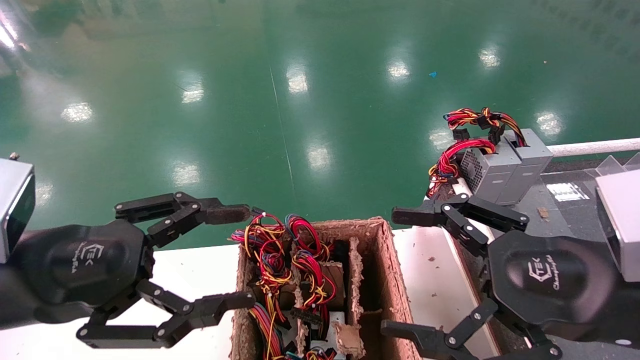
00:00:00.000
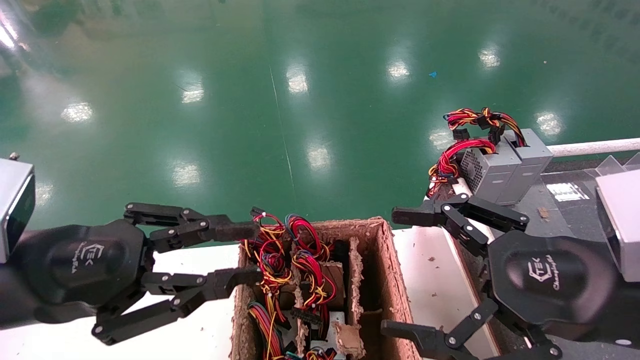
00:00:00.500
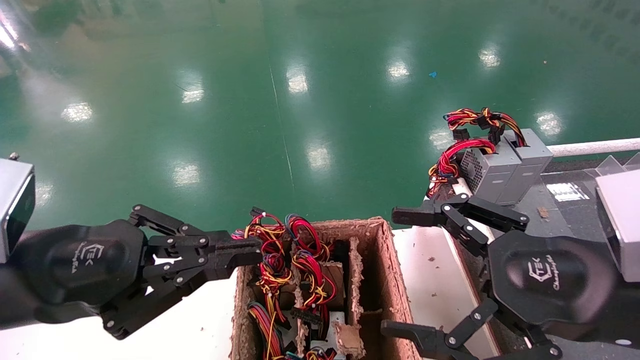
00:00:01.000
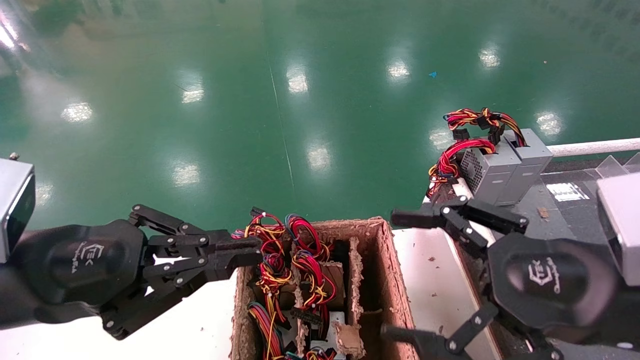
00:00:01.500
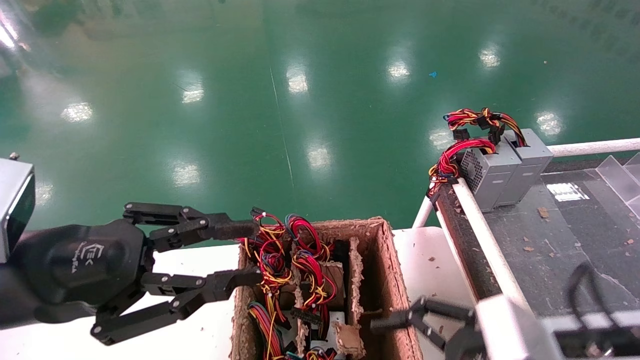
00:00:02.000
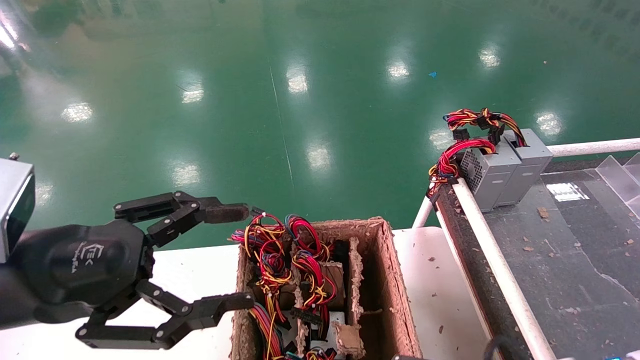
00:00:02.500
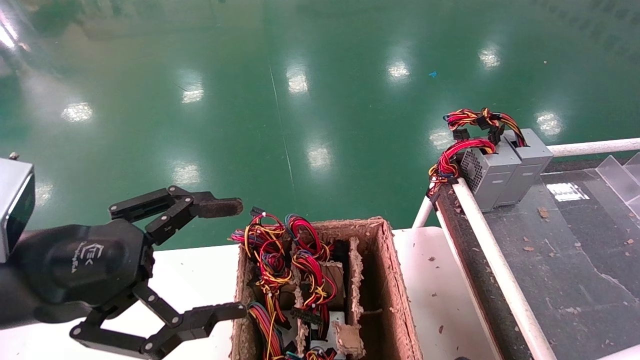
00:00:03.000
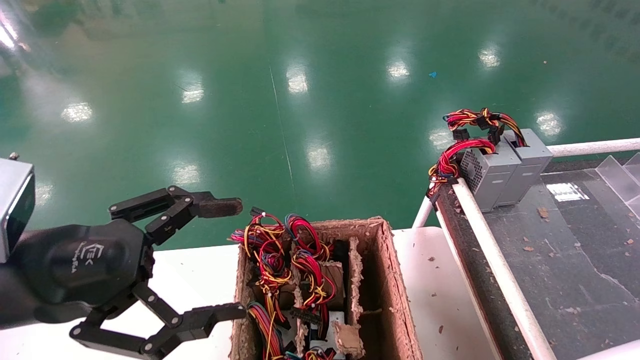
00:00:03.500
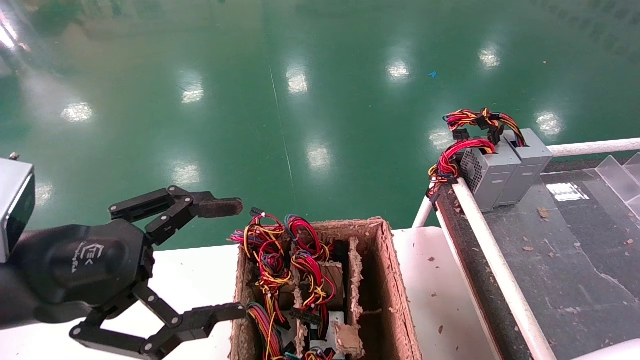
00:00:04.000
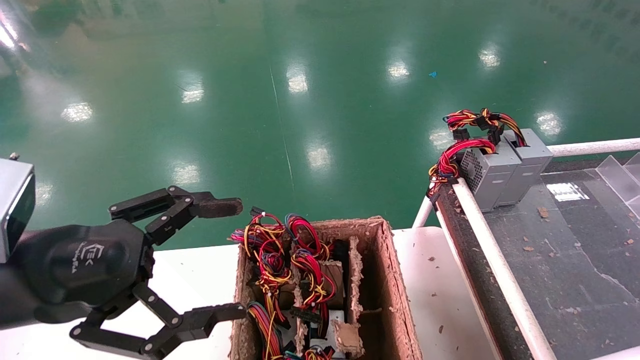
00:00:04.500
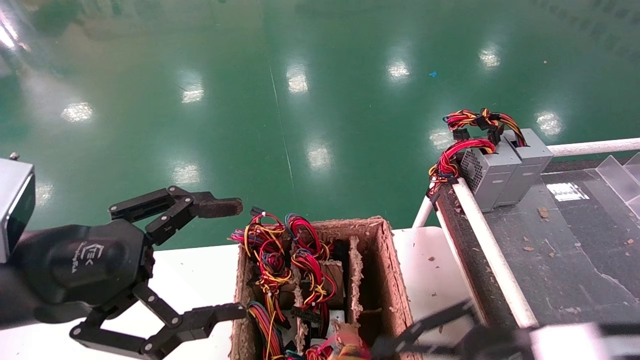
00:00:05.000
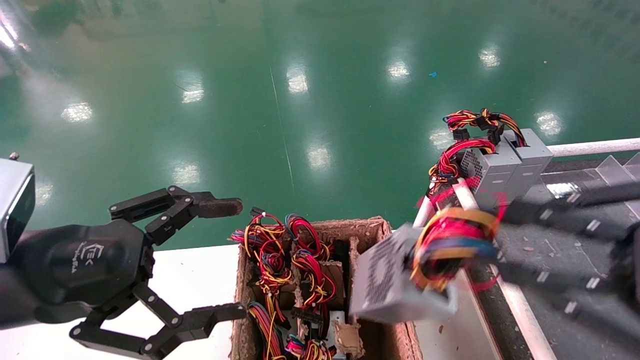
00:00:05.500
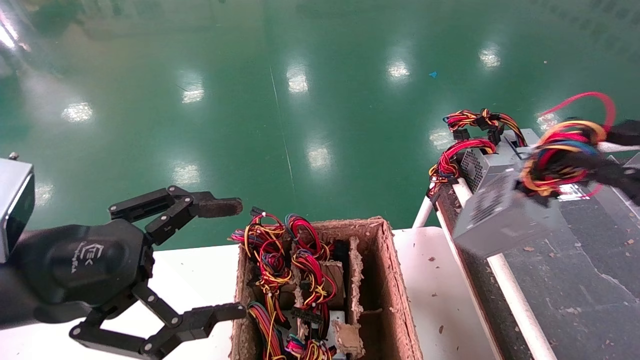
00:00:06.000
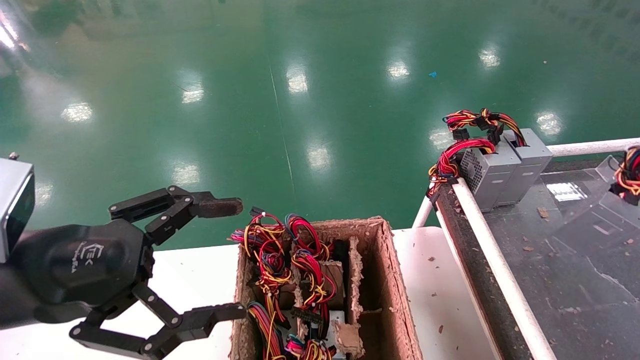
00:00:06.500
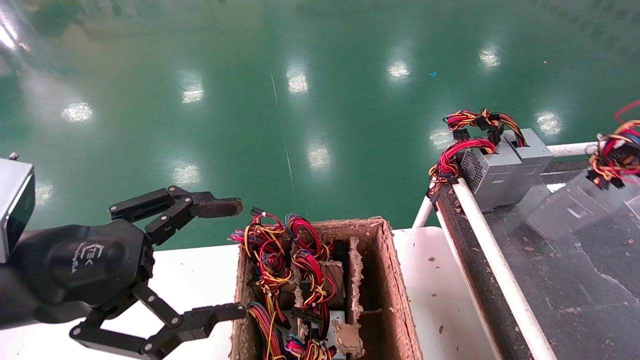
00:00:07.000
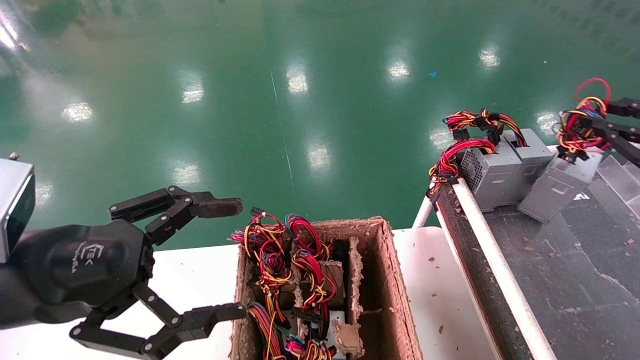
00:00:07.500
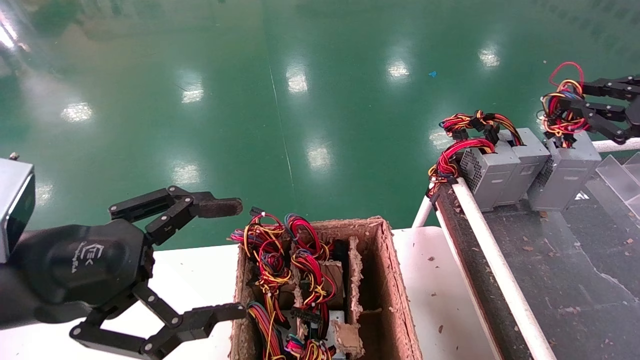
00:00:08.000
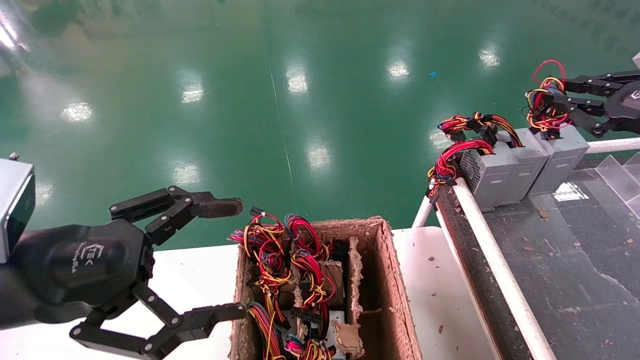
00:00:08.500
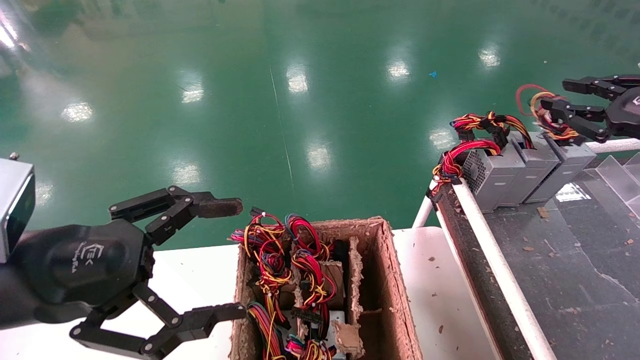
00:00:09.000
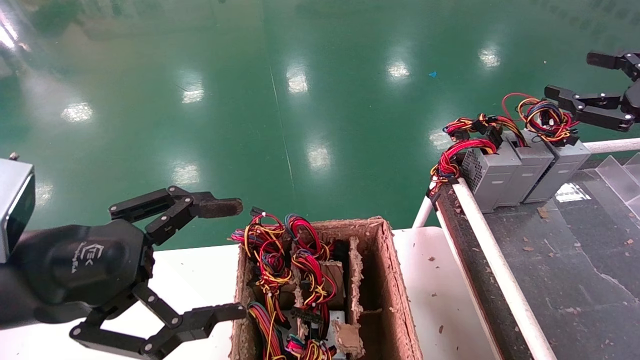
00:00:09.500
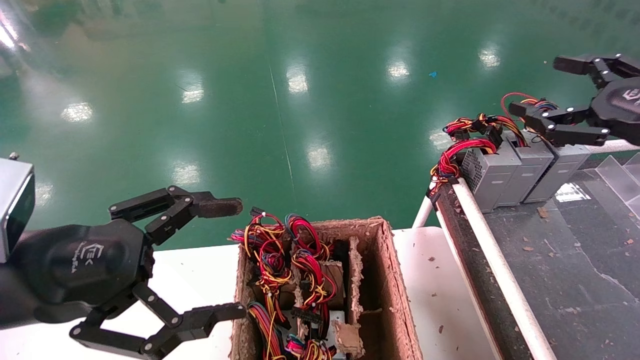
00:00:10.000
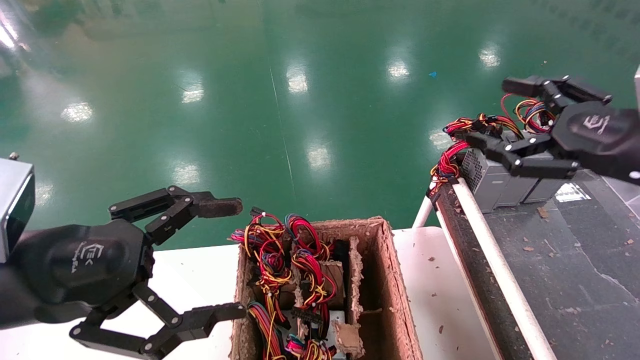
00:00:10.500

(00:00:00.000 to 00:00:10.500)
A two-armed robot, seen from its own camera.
Step, 00:00:02.000 - 00:00:04.000: Grab and lift the power supply from the large box.
Step, 00:00:04.500 - 00:00:09.000: Place the power supply on the operating table.
00:00:00.000 - 00:00:02.000: The left gripper closes, while the right gripper heads downward, covering roughly 10 cm.
00:00:02.000 - 00:00:04.000: The right gripper moves downward and to the left, about 10 cm, and closes, while the left gripper opens up.
00:00:04.000 - 00:00:06.500: The right gripper moves to the right and upward, some 35 cm.
00:00:06.500 - 00:00:08.500: The right gripper moves forward and upward, about 20 cm.
00:00:08.500 - 00:00:10.500: The right gripper is displaced to the left and backward by about 10 cm, and opens its fingers.

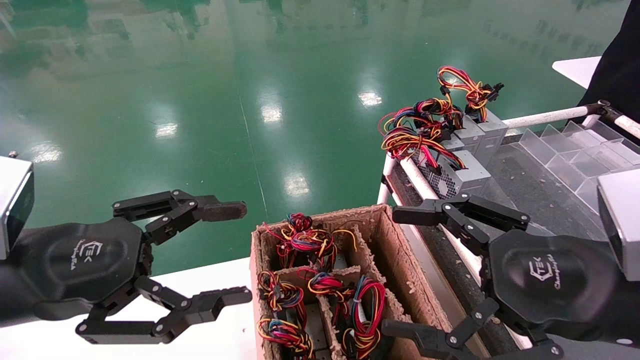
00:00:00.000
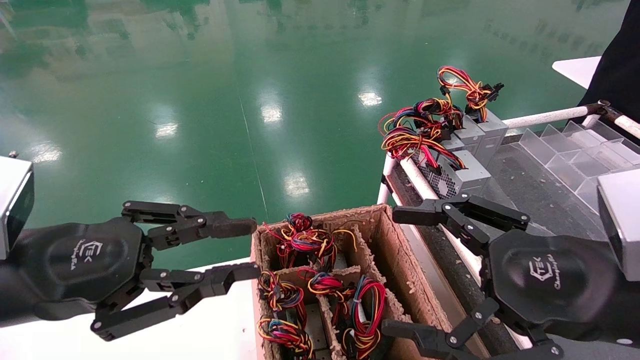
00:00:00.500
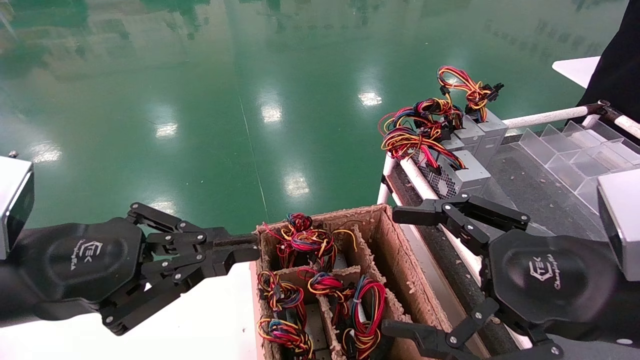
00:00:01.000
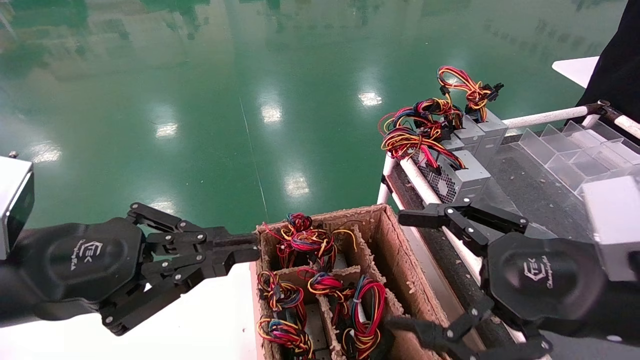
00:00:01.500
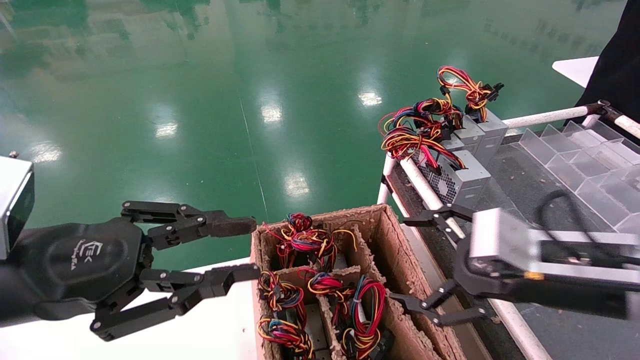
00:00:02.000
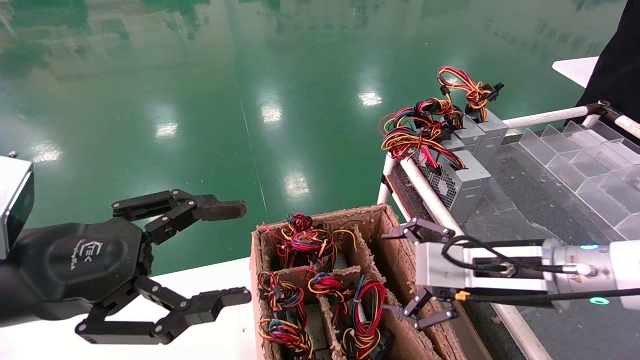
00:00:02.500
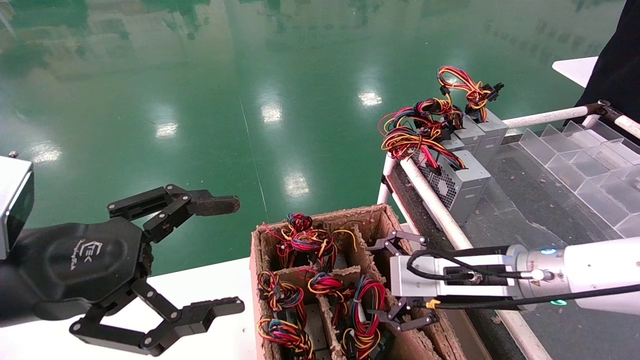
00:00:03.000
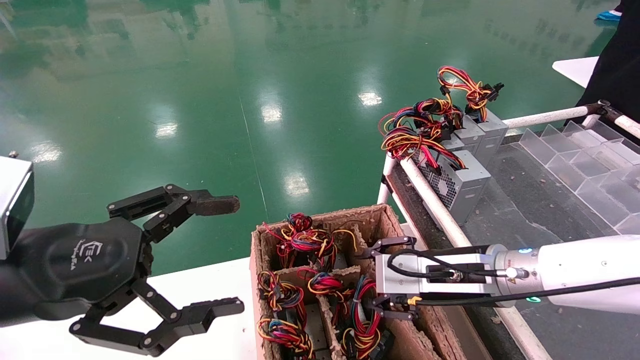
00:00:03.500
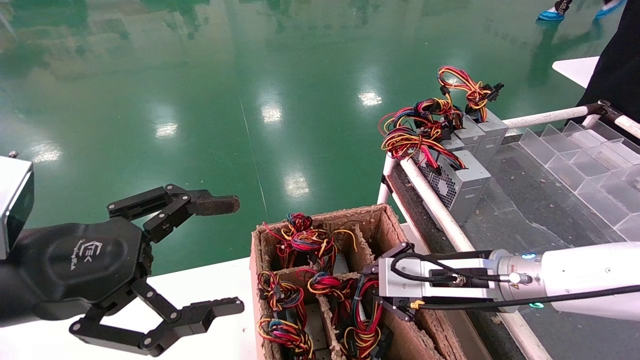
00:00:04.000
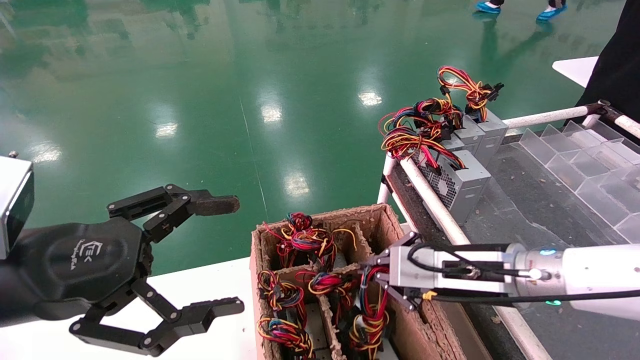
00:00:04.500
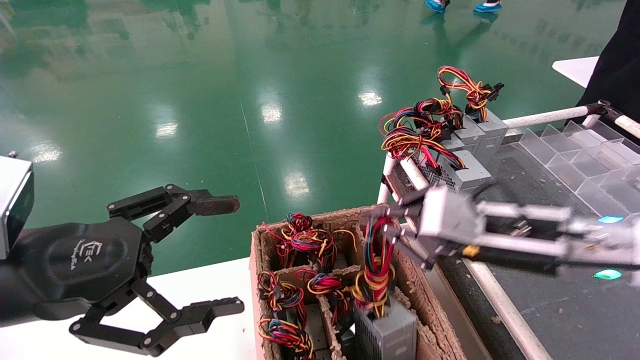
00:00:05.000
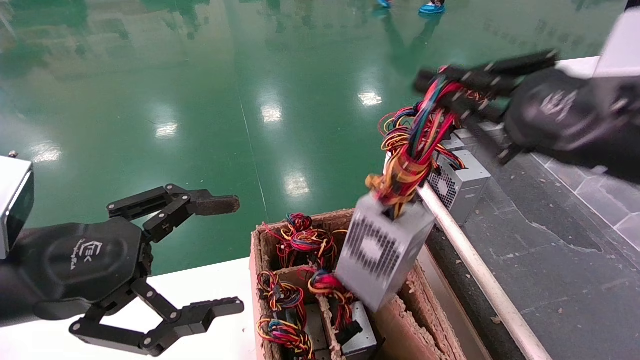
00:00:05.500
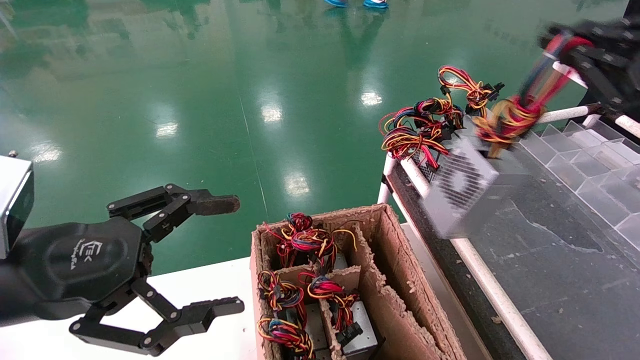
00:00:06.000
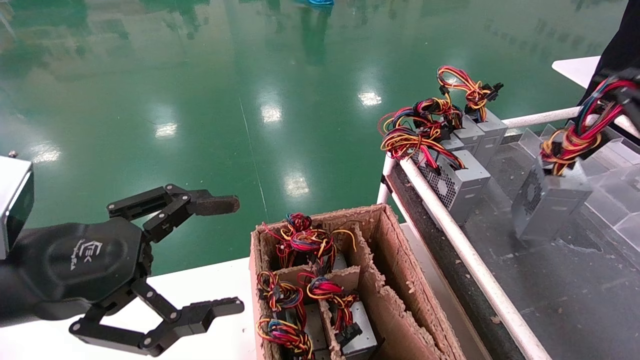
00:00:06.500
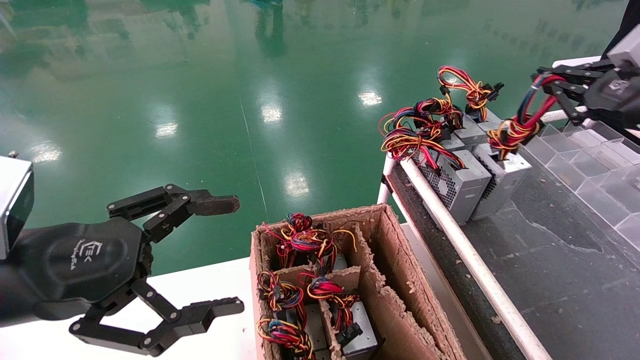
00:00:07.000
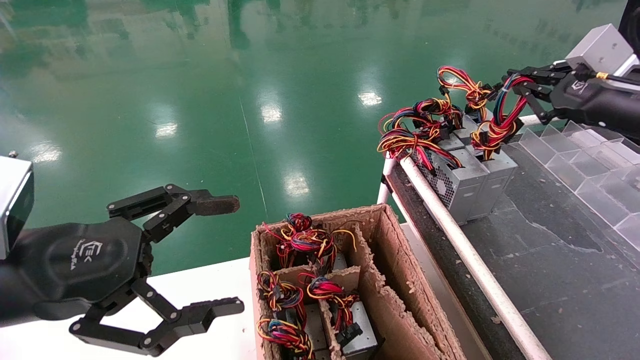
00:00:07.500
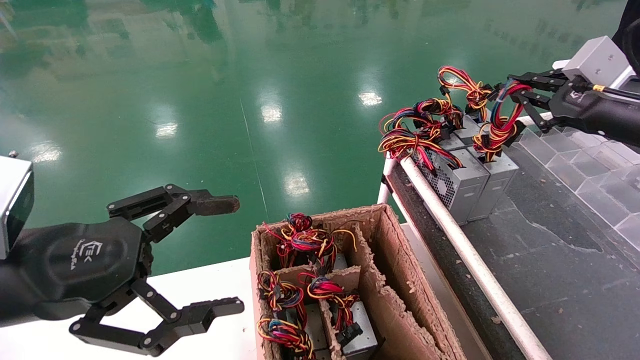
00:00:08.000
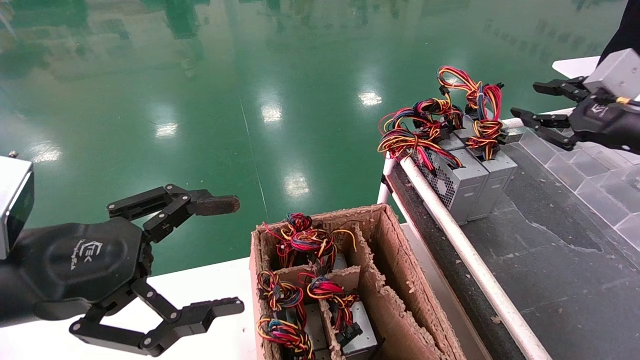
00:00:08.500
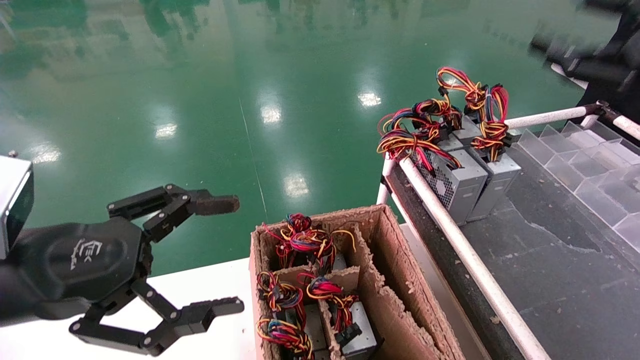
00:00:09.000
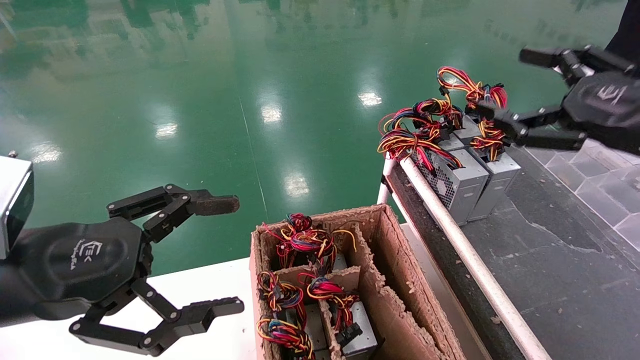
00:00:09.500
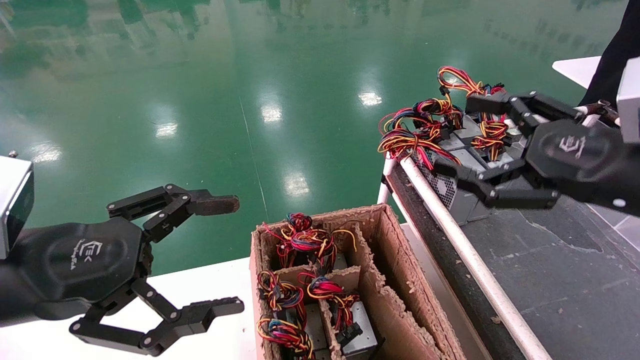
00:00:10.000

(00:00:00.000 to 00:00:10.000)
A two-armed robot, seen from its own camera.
Step, 00:00:01.500 - 00:00:04.000: Grab and lift the power supply from the large box.
Step, 00:00:04.500 - 00:00:08.000: Place the power supply on the operating table.
00:00:00.000 - 00:00:02.000: The right gripper travels forward by some 5 cm; the left gripper closes its fingers.
00:00:02.000 - 00:00:04.000: The right gripper heads forward and to the left, covering about 10 cm, and closes its fingers. Meanwhile the left gripper opens.
00:00:04.000 - 00:00:06.000: The right gripper moves upward, to the right and backward, roughly 30 cm.
00:00:06.000 - 00:00:08.000: The right gripper shifts about 15 cm forward.
00:00:08.000 - 00:00:10.000: The right gripper goes about 15 cm backward and to the left, and opens its fingers.
